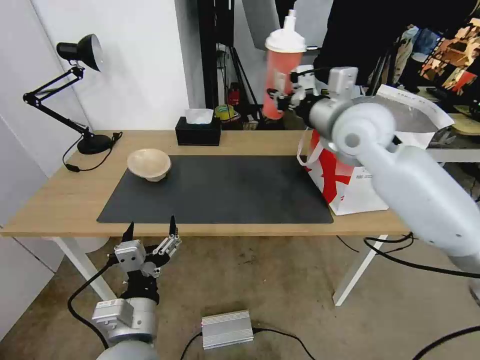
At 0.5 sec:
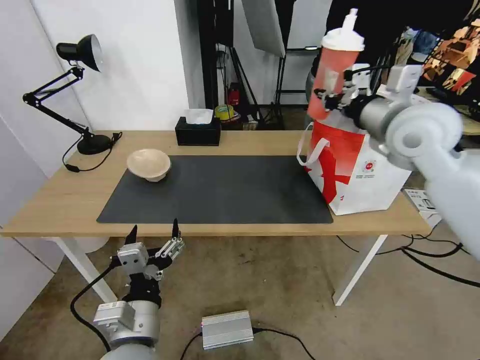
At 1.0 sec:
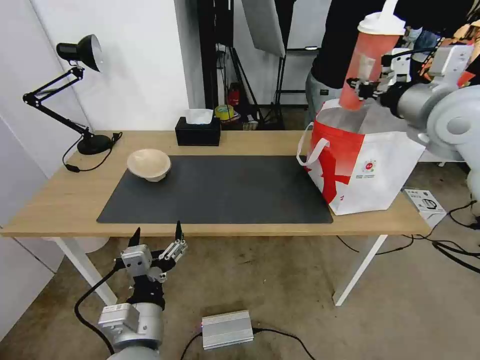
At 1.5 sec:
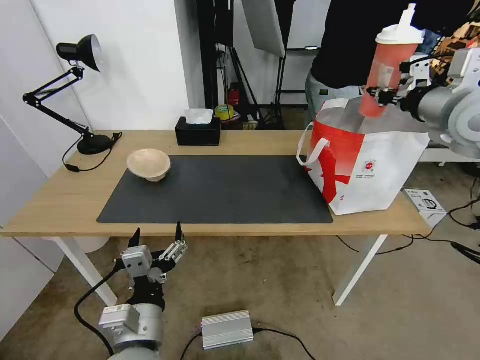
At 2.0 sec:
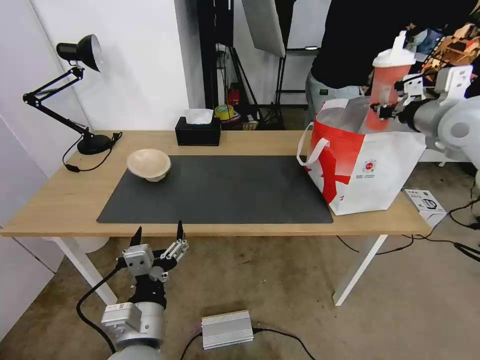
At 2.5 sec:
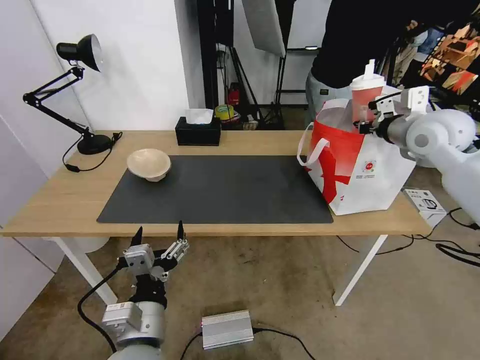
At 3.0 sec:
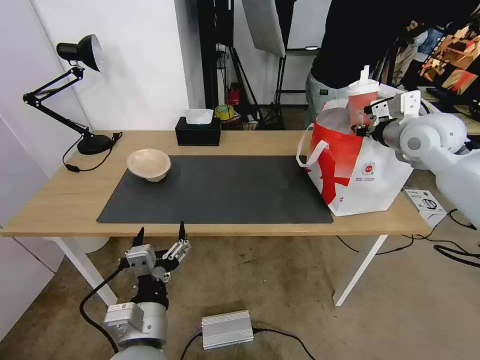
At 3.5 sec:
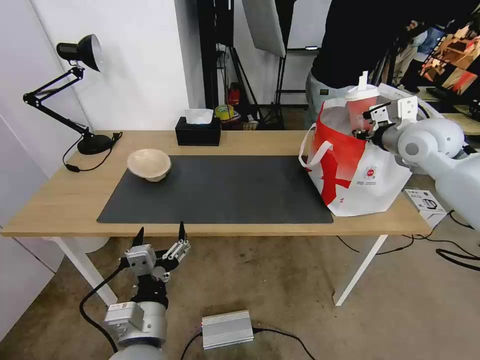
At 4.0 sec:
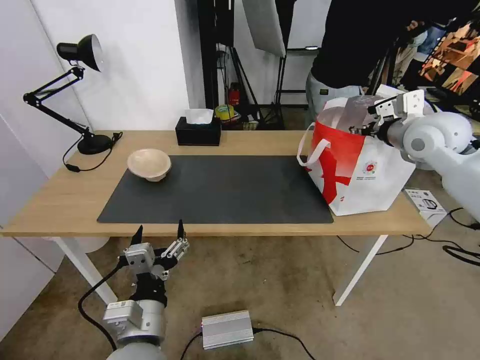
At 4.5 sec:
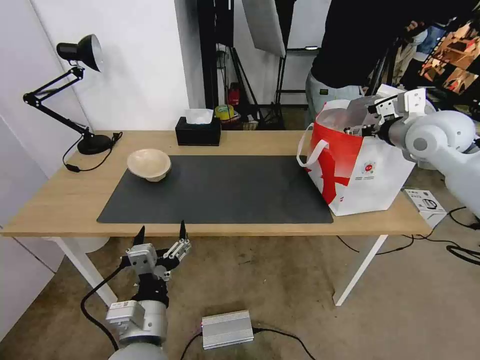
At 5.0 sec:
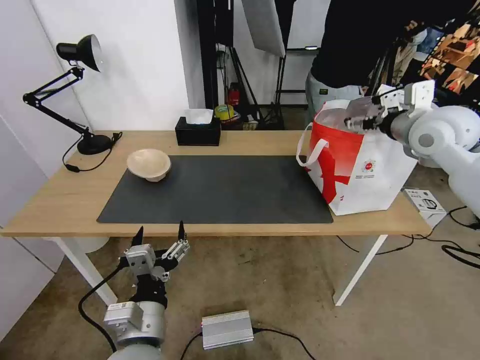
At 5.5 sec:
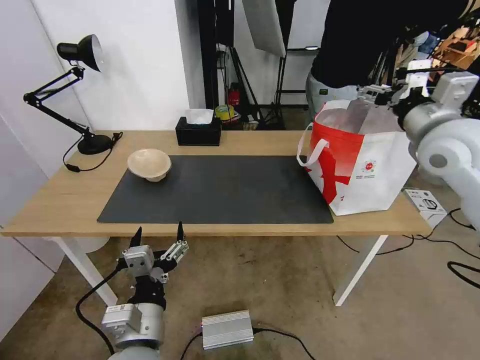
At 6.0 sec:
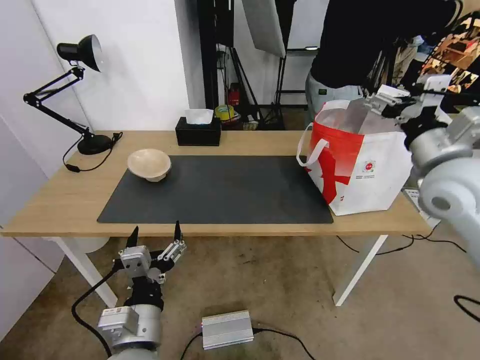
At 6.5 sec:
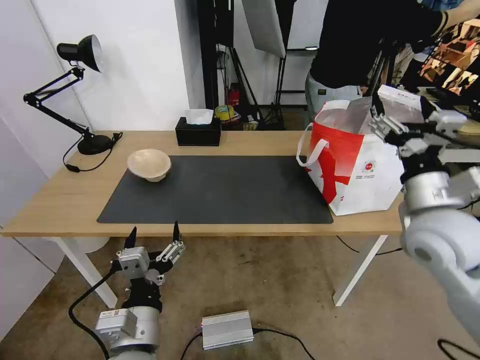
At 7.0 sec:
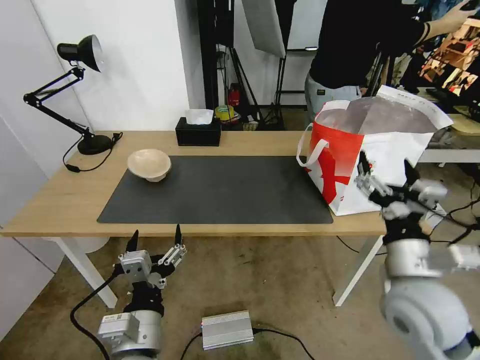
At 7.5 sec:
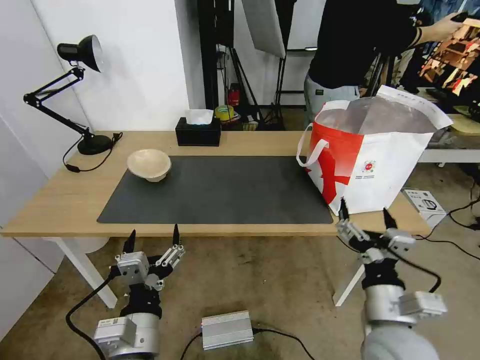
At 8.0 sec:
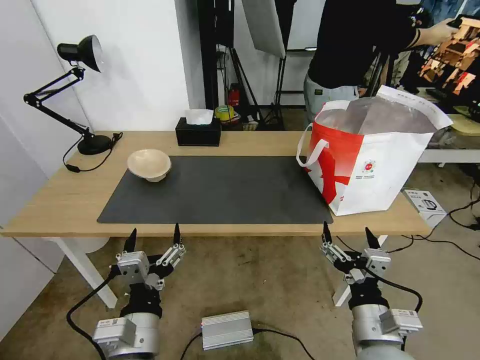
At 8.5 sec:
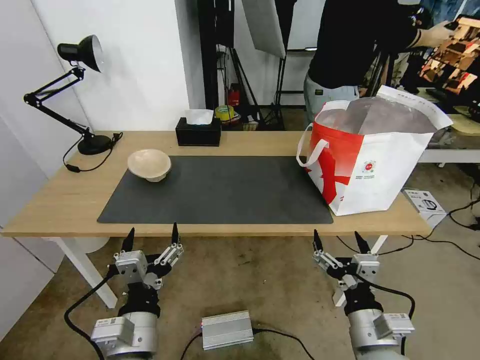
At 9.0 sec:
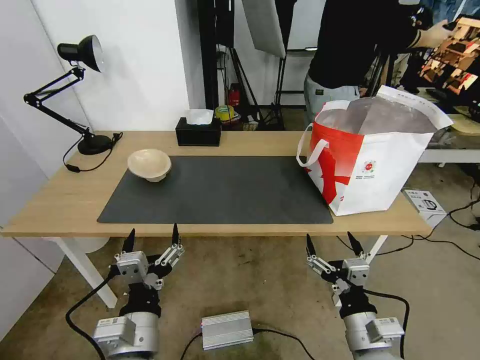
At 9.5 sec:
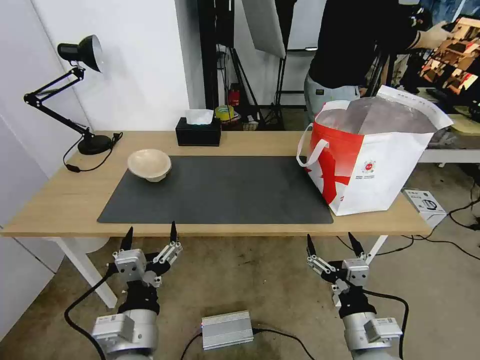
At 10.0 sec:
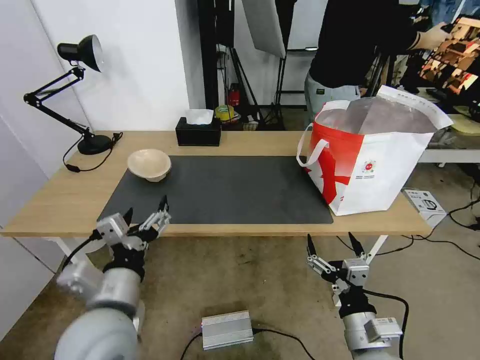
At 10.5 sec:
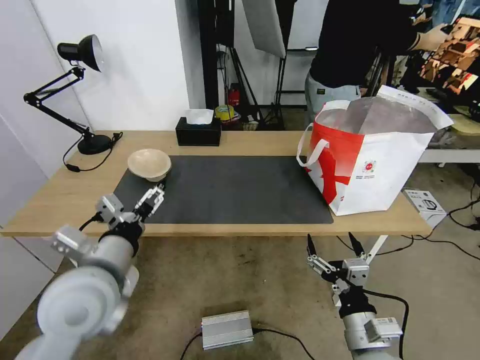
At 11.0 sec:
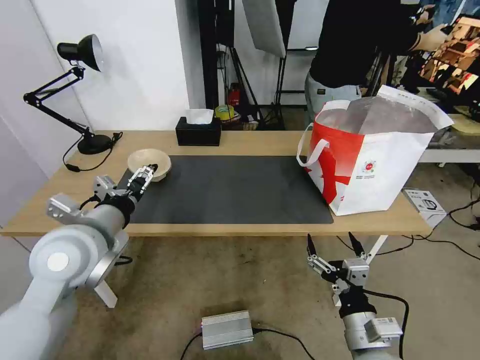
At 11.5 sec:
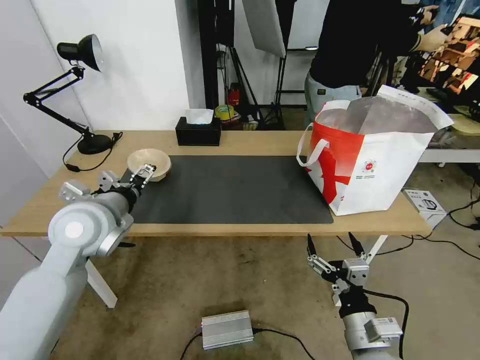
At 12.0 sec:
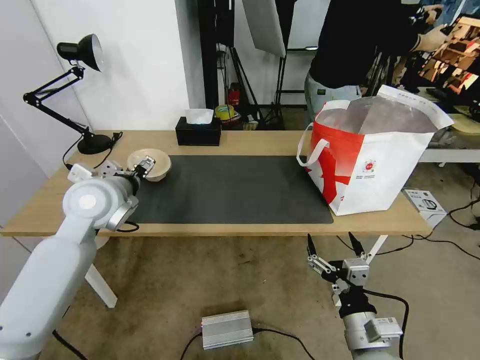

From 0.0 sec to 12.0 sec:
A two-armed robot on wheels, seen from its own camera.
Task of the whole recording: Pick up the trash from the table and place it into the takeout bag.
From 0.0 sec to 2.0 sec: The right gripper shifts about 20 cm to the right.
From 2.0 sec to 4.0 sec: The right gripper ends up about 5 cm from where it was, and opens its fingers.
From 4.0 sec to 6.0 sec: The right gripper shifts approximately 10 cm backward, and opens its fingers.
From 6.0 sec to 8.0 sec: The right gripper is displaced downward, backward and to the left by some 35 cm.
From 8.0 sec to 10.0 sec: The left gripper moves upward, about 5 cm.
From 10.0 sec to 12.0 sec: The left gripper shifts some 20 cm forward.

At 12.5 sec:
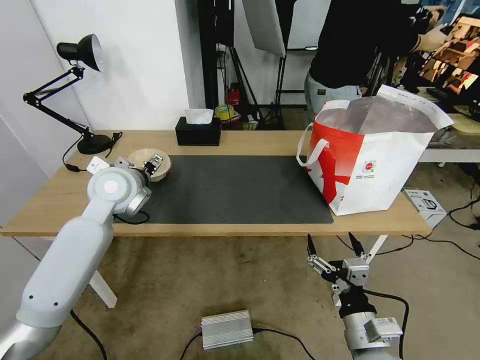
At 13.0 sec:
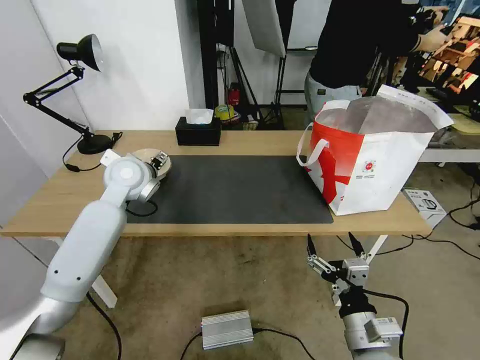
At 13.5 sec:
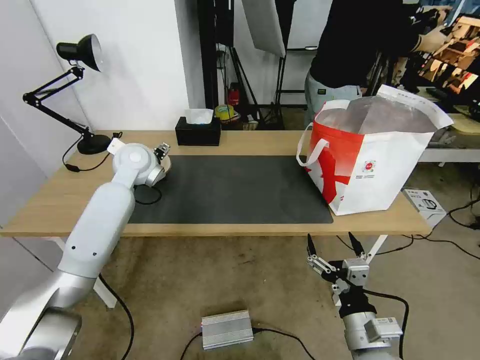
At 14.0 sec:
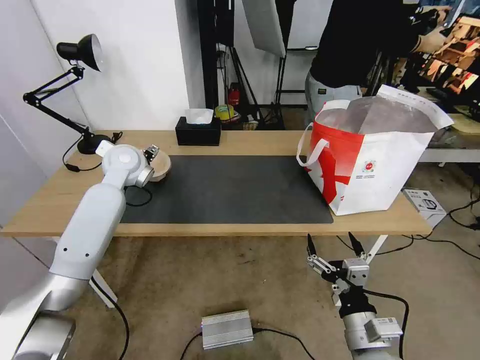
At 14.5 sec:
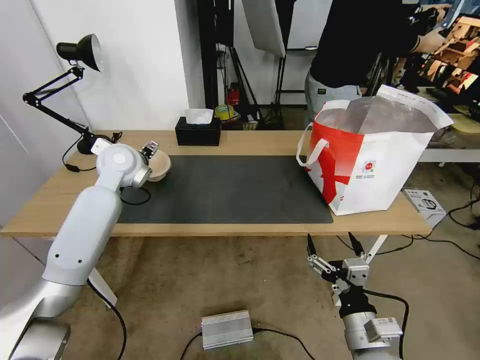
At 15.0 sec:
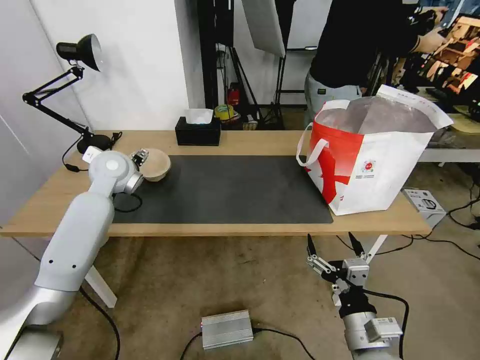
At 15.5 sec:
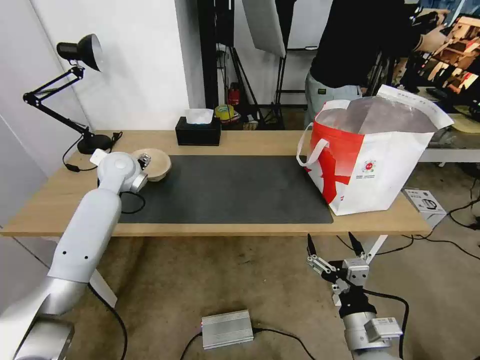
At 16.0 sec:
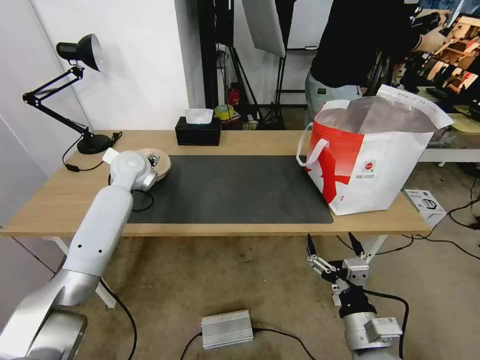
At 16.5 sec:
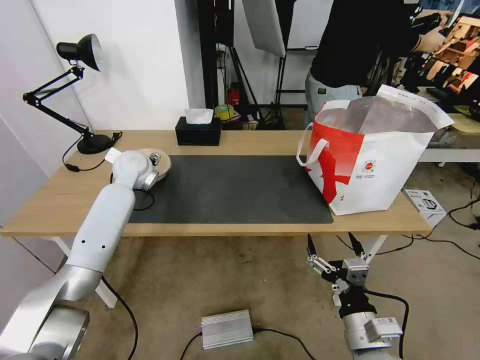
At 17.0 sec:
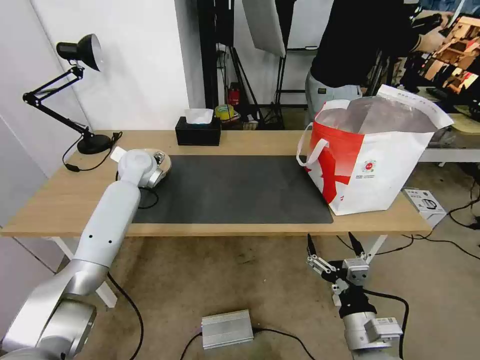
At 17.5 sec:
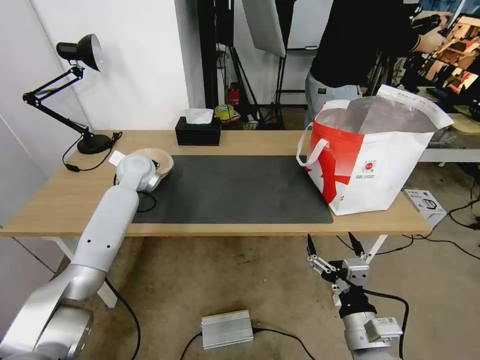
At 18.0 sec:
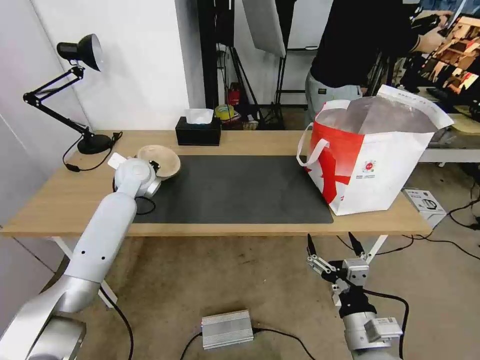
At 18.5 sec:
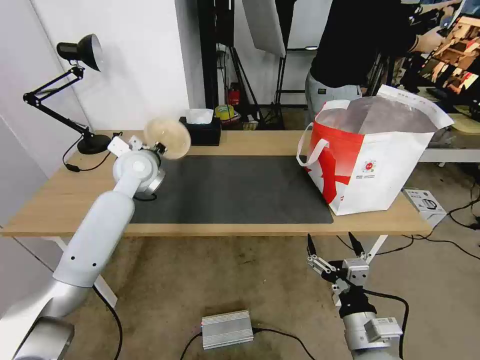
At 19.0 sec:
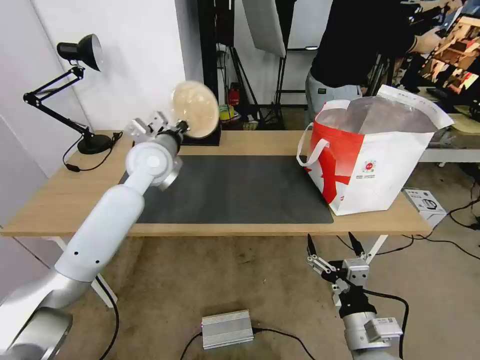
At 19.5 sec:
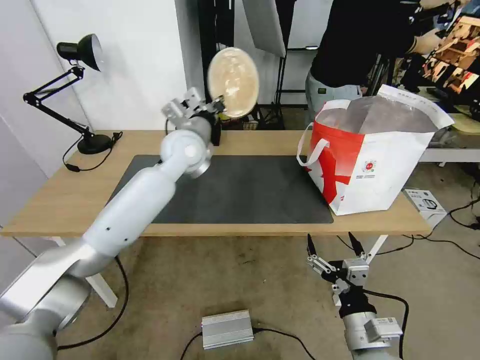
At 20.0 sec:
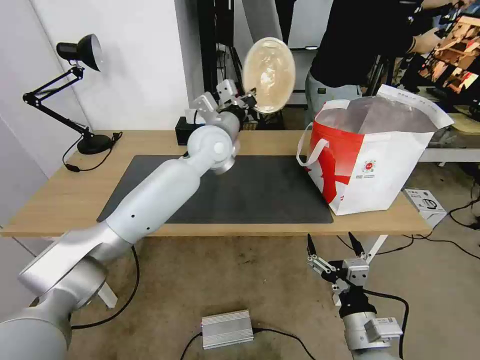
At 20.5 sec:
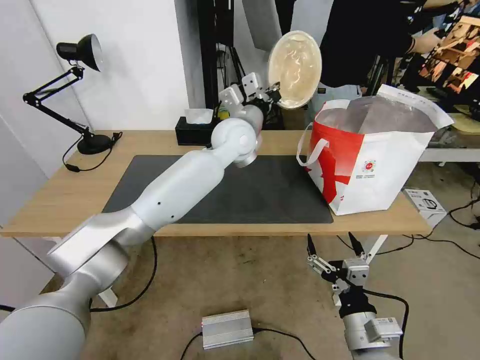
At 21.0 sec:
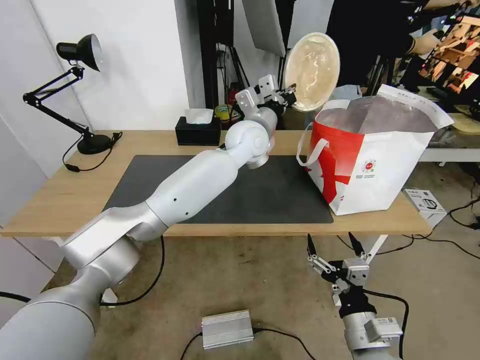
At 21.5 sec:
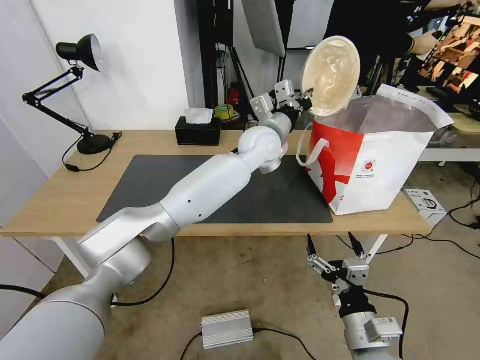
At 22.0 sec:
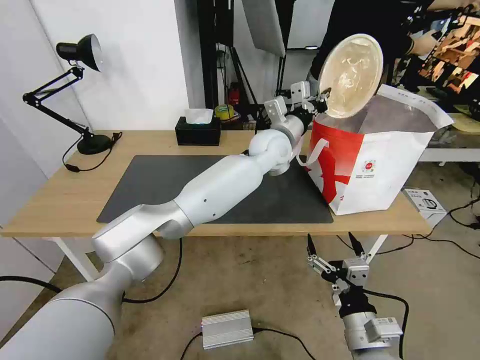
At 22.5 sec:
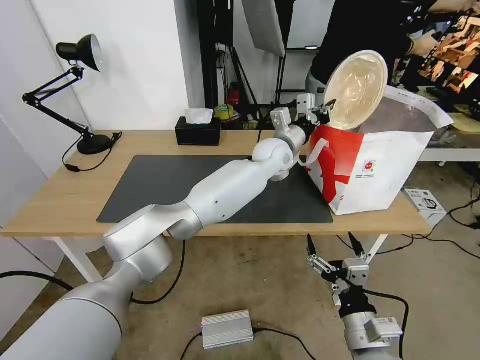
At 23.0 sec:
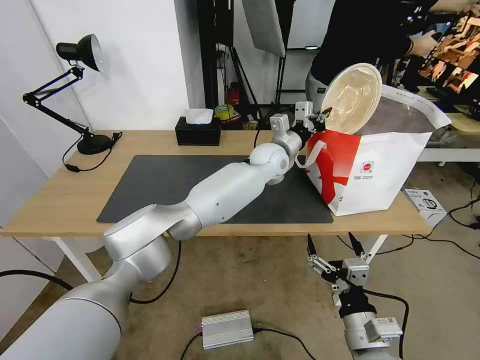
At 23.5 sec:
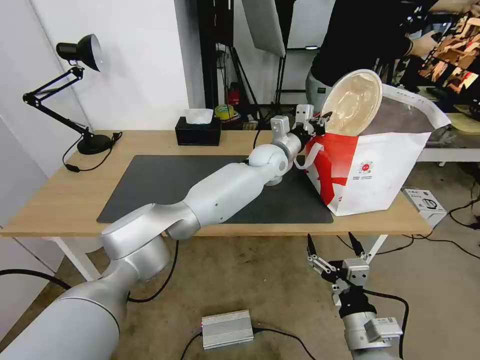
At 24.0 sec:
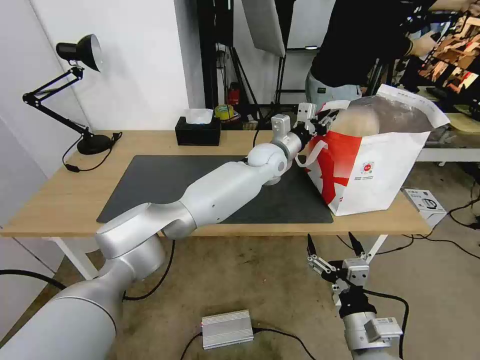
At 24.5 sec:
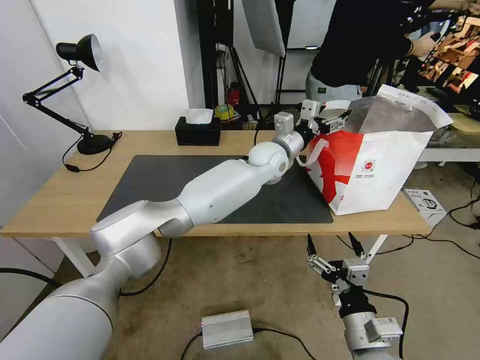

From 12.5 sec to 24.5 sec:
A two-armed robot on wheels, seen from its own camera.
Task of the whole recording: Pick up the trash from the table and place it into the takeout bag.
From 12.5 sec to 14.5 sec: The left gripper shifts about 5 cm forward.
From 14.5 sec to 16.5 sec: The left gripper is displaced downward and forward by some 5 cm.
From 16.5 sec to 18.5 sec: The left gripper ends up roughly 5 cm from where it was, and closes up.
From 18.5 sec to 20.5 sec: The left gripper moves to the right, some 20 cm.
From 20.5 sec to 22.5 sec: The left gripper moves to the right and downward, about 10 cm.
From 22.5 sec to 24.5 sec: The left gripper opens up.

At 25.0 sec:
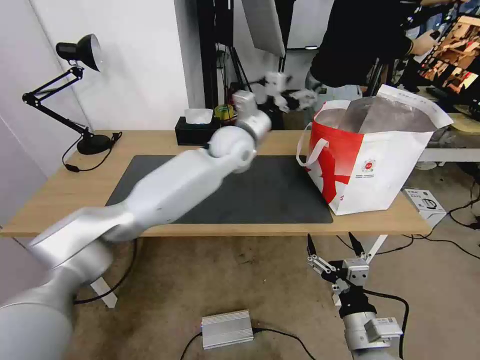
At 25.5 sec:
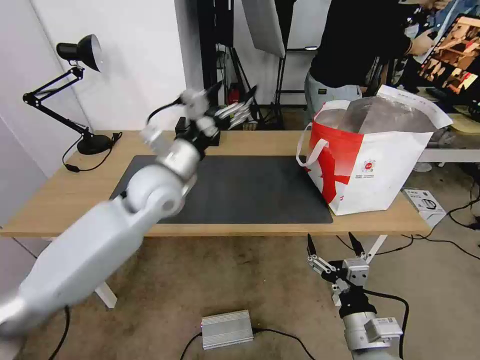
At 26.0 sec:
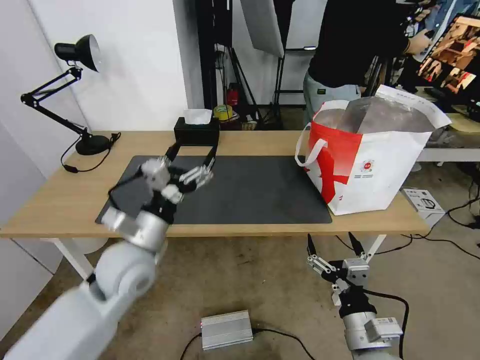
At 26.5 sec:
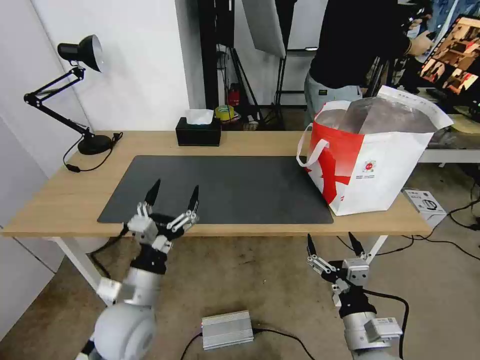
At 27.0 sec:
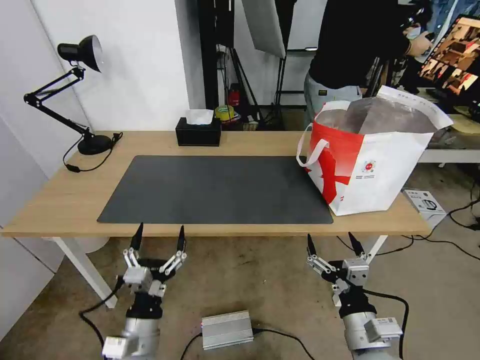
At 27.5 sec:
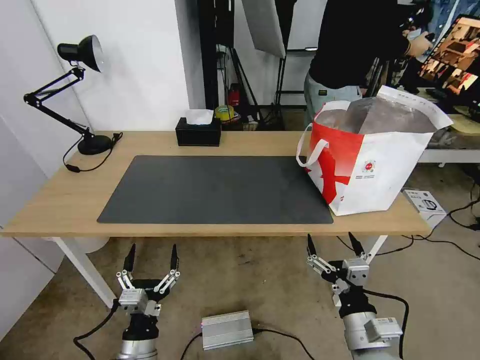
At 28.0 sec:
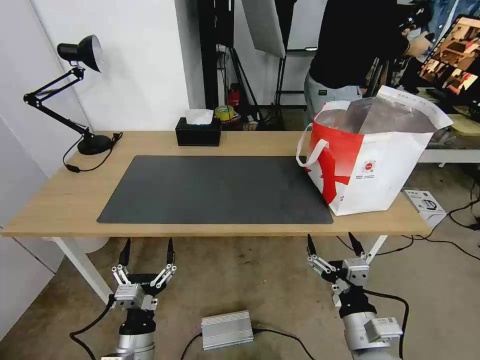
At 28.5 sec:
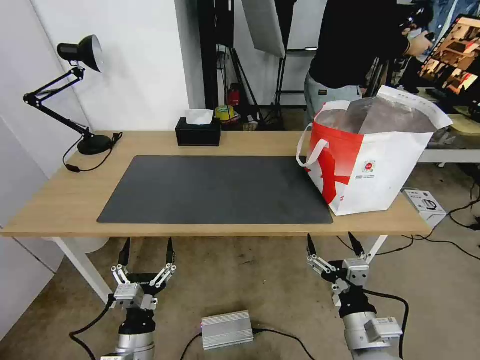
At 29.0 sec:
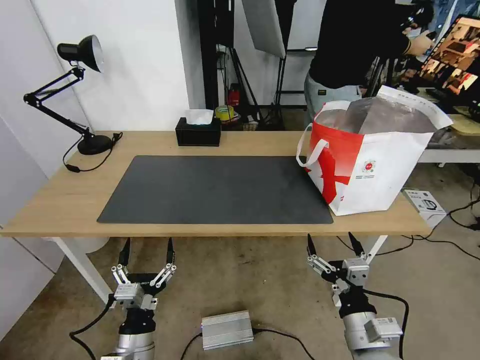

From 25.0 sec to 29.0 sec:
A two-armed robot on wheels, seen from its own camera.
Task of the whole recording: Pick up the trash from the table and place it into the takeout bag.
From 25.0 sec to 27.0 sec: The left gripper moves backward, downward and to the left, about 50 cm.
From 27.0 sec to 29.0 sec: The grippers stay close to where they were, moving slightly.
